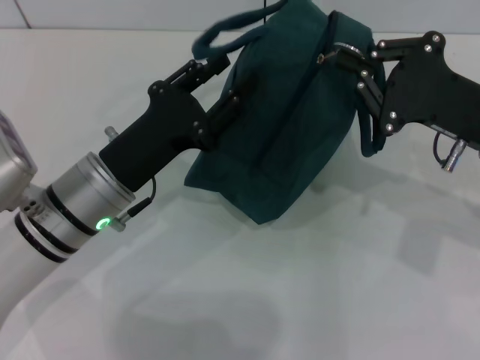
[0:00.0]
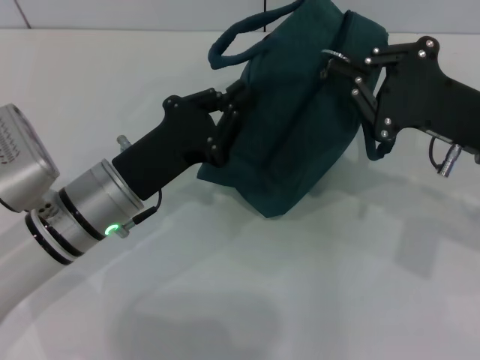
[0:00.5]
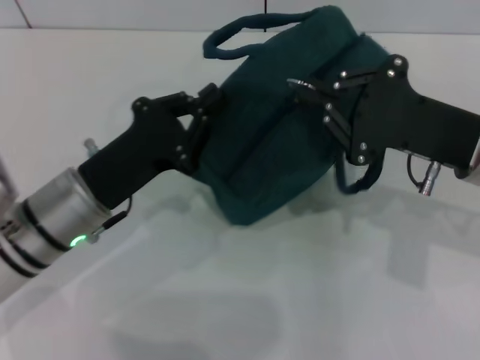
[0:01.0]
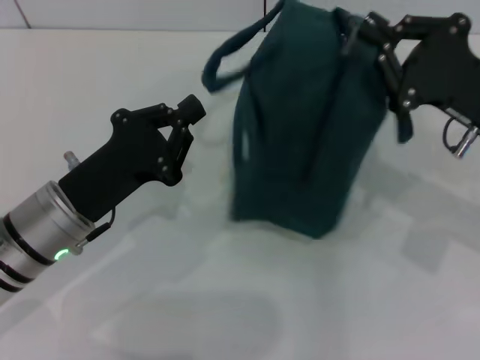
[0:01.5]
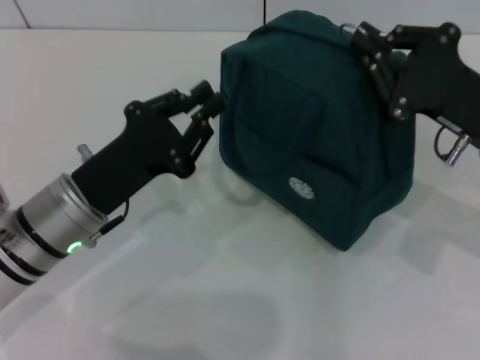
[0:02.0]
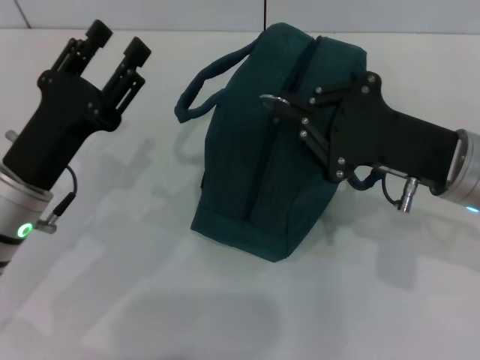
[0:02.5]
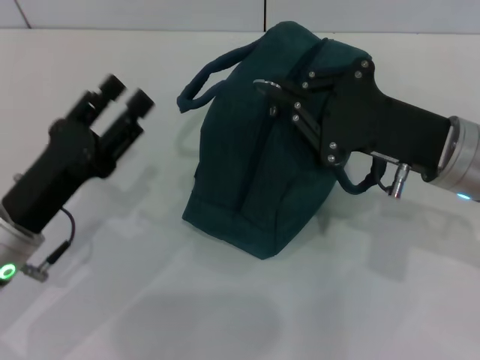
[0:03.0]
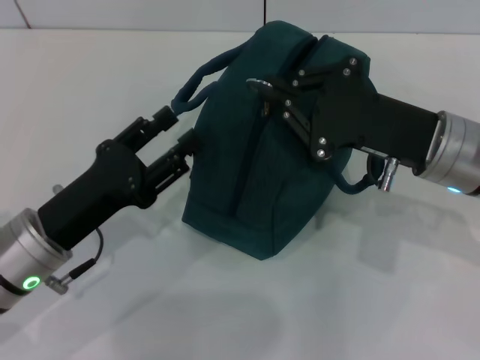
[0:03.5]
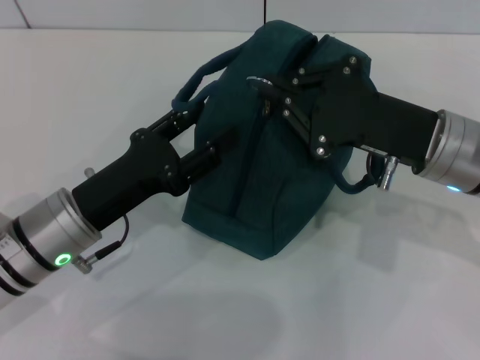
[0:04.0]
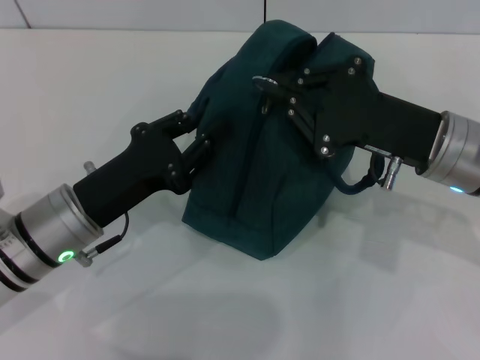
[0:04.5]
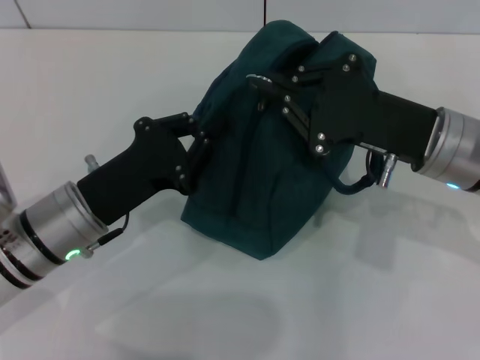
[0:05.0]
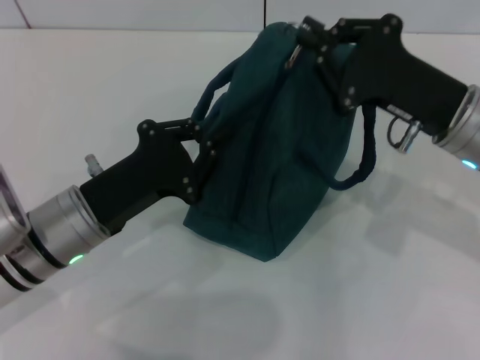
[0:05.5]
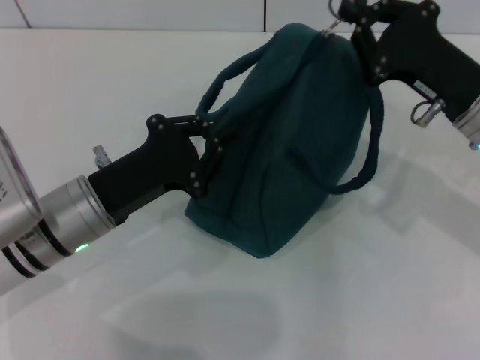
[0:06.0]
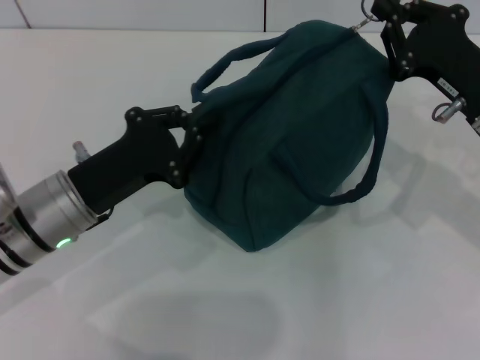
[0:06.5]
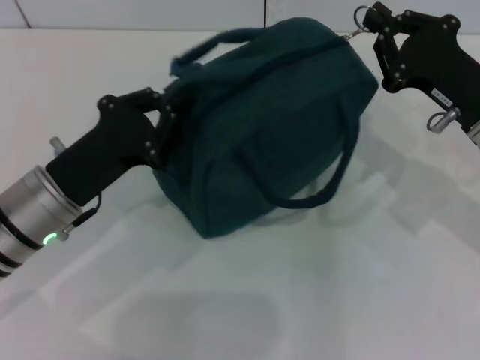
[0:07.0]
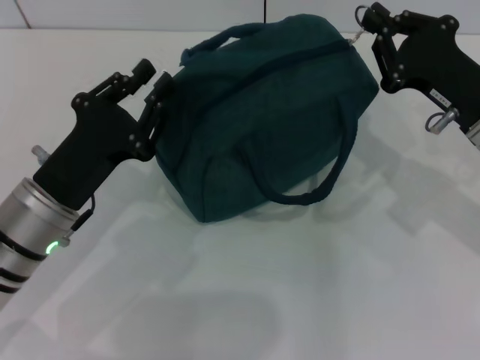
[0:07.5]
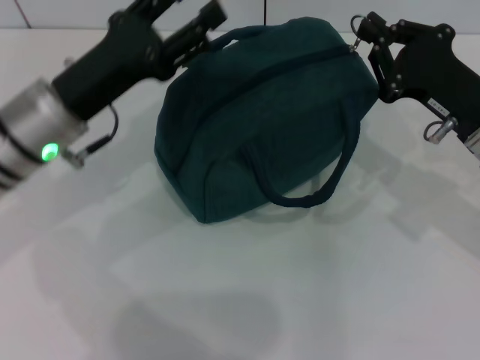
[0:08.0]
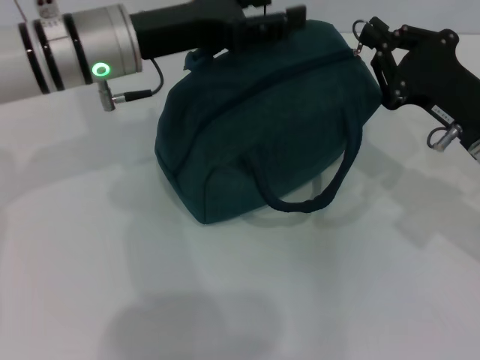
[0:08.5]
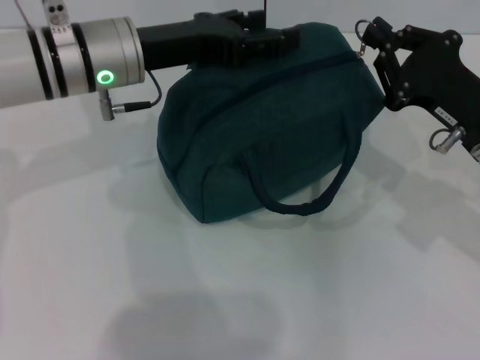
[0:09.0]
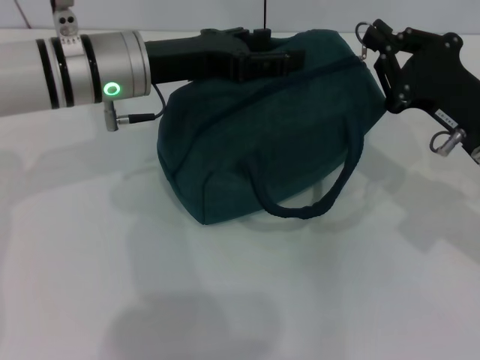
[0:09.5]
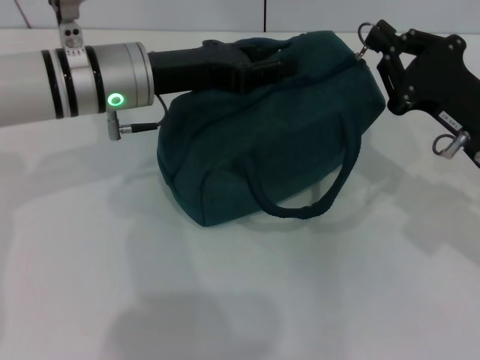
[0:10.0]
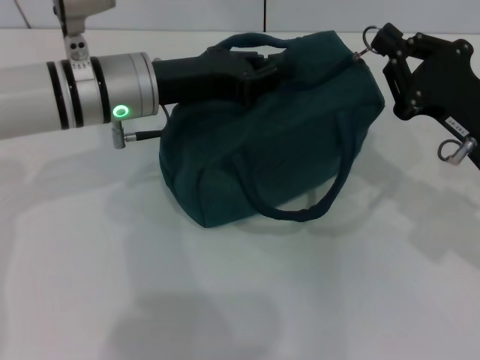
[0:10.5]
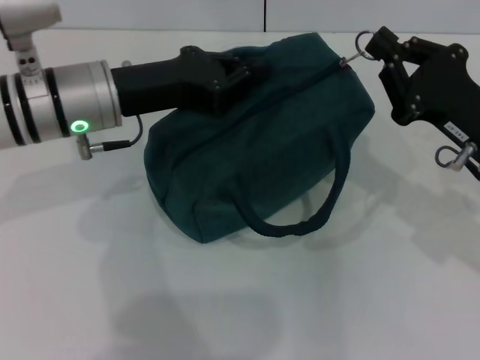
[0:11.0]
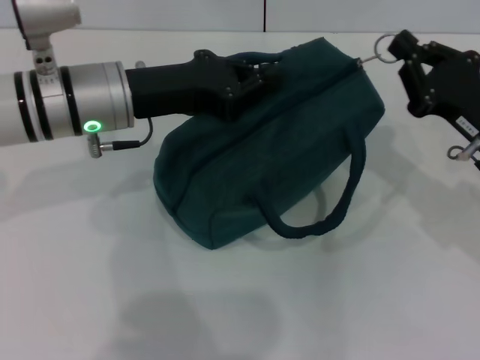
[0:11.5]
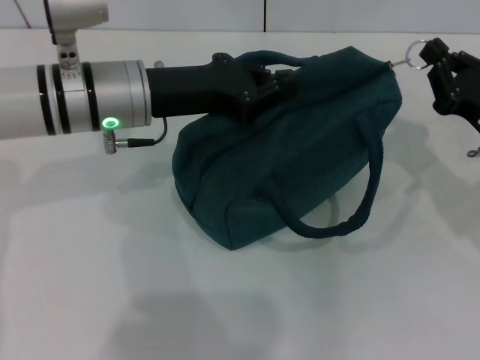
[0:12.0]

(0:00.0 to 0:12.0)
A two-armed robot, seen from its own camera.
0:00.0 - 0:02.0: The left gripper closes up.
0:02.0 - 0:04.0: The left gripper opens, while the right gripper shifts some 5 cm to the left.
0:04.0 - 0:06.0: The left gripper closes.
0:06.0 - 0:08.0: The left gripper shifts roughly 10 cm upward and forward, and opens its fingers.
0:08.0 - 0:10.0: The left gripper is displaced forward by about 5 cm.
0:10.0 - 0:12.0: The left gripper closes up.

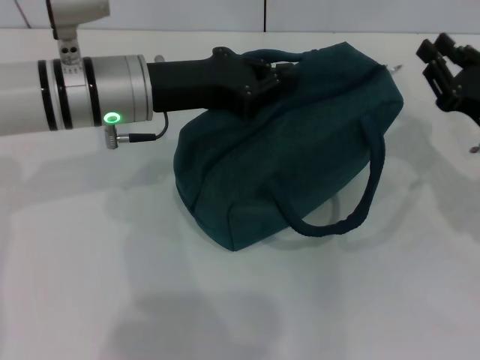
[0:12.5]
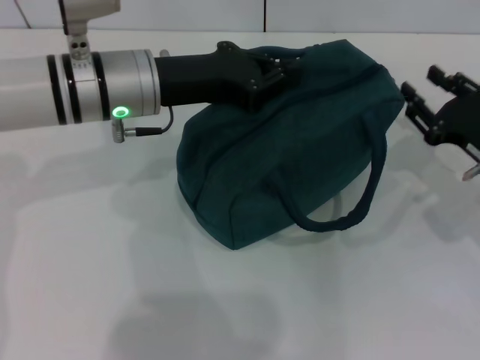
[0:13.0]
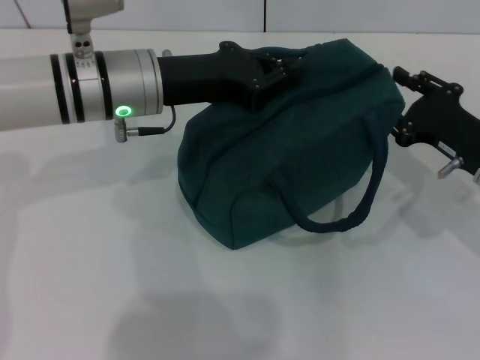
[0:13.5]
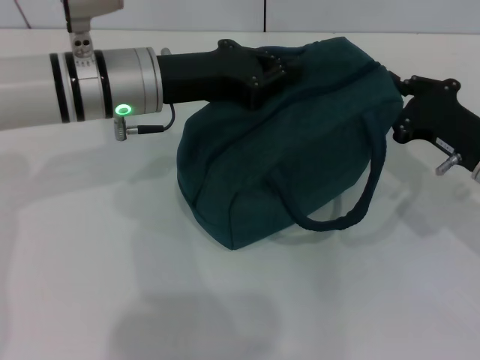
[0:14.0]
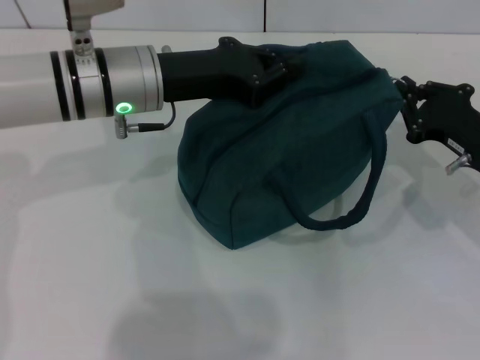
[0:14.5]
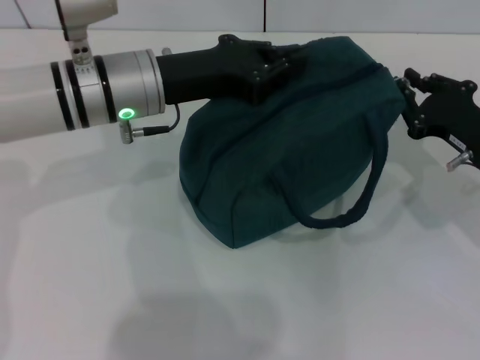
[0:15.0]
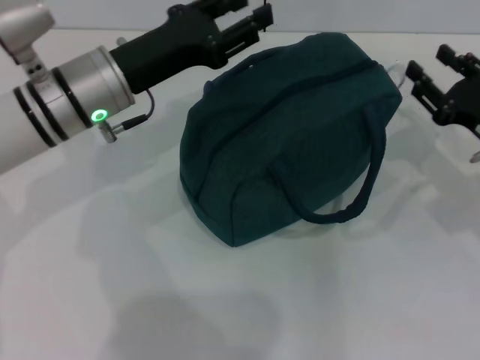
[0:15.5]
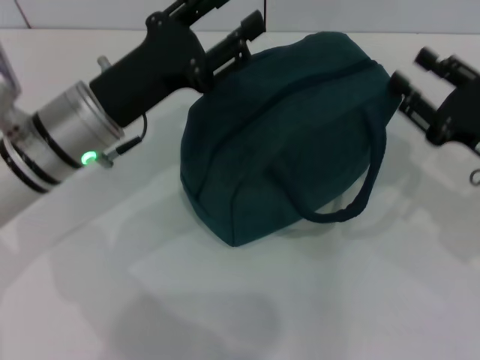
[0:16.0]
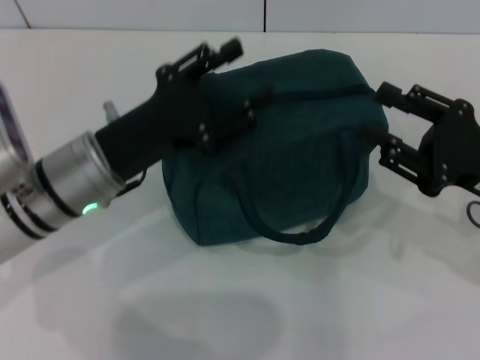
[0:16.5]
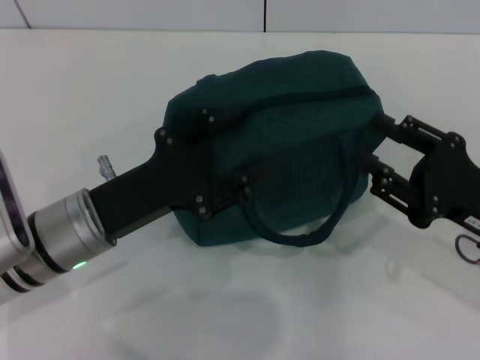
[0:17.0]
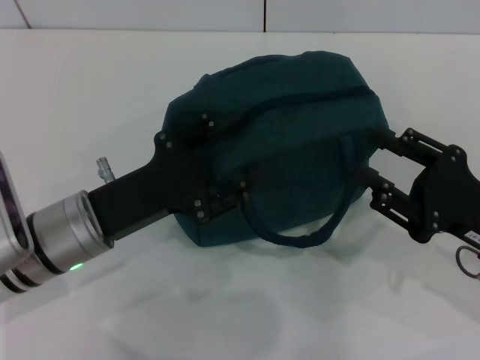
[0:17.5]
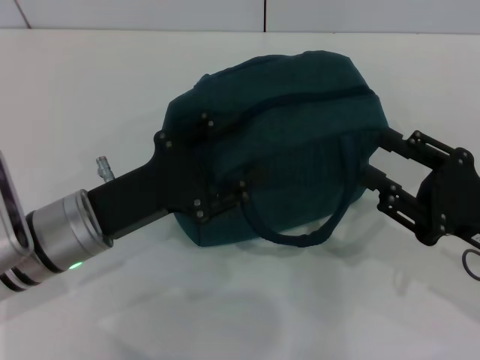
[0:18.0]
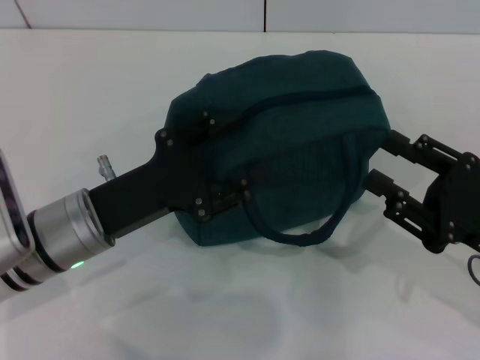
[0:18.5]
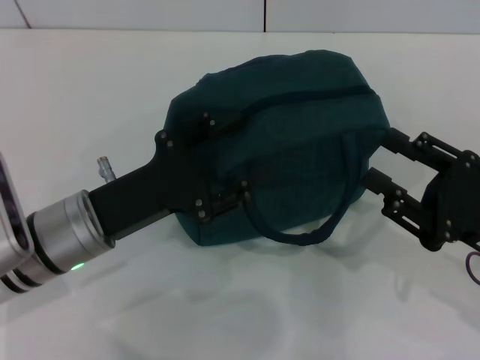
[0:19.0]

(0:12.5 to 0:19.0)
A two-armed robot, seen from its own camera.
Step, 0:12.5 - 0:15.0: Hold the lunch bag with your left hand.
0:12.5 - 0:14.5: The right gripper opens, then closes once more.
0:14.5 - 0:17.0: The left gripper goes some 15 cm backward and downward, and opens up, while the right gripper moves backward, some 10 cm, and opens.
0:17.0 - 0:19.0: There are only small adjustments of the grippers.
